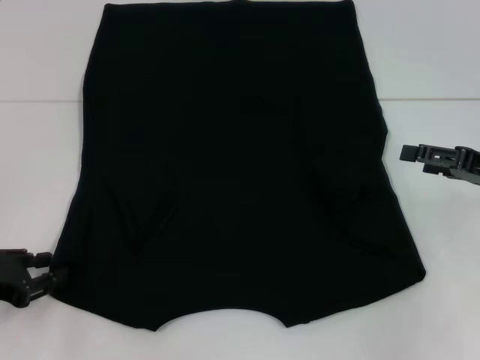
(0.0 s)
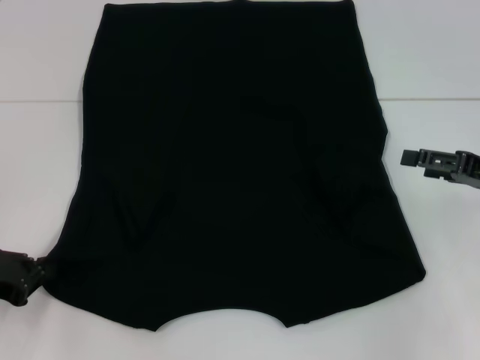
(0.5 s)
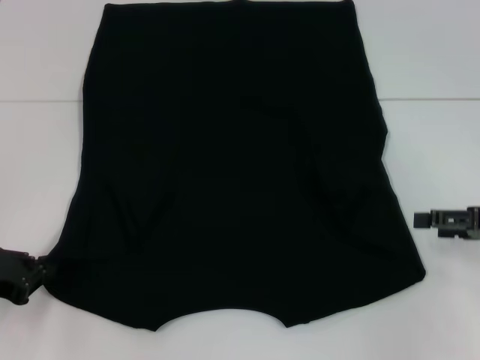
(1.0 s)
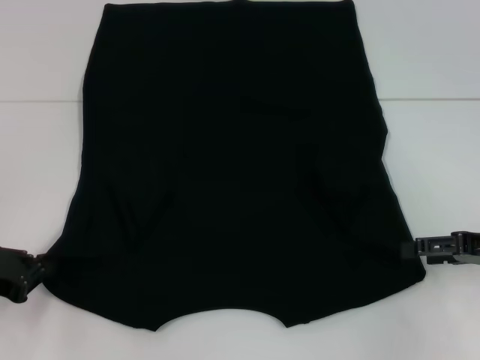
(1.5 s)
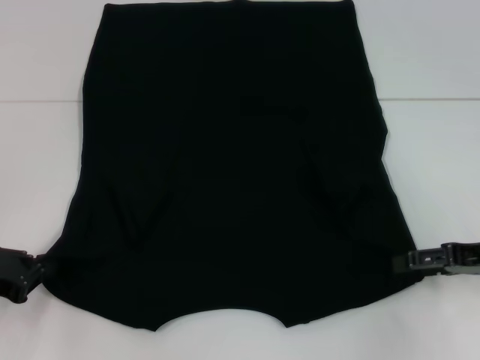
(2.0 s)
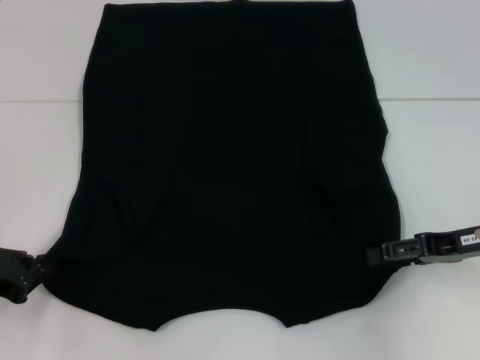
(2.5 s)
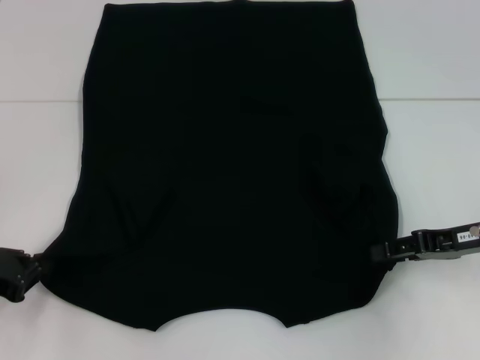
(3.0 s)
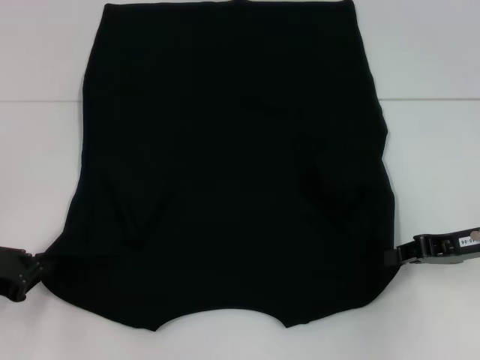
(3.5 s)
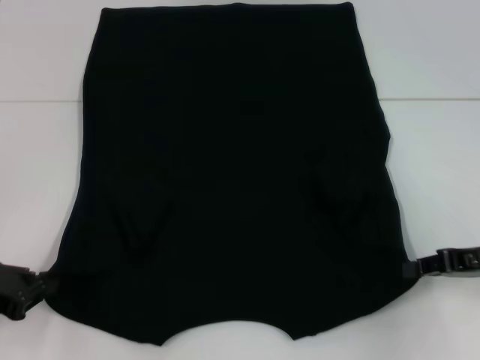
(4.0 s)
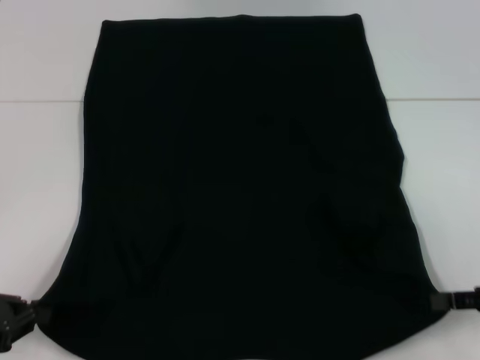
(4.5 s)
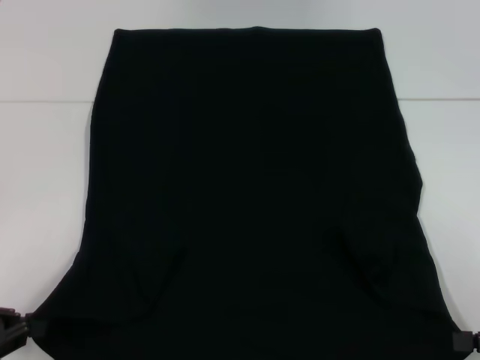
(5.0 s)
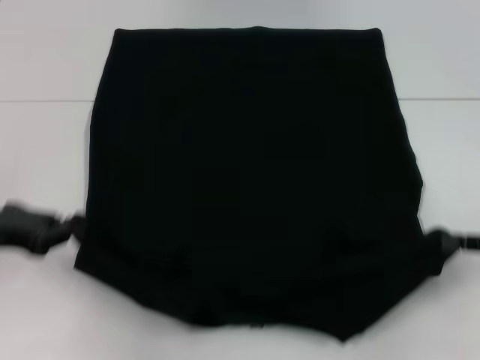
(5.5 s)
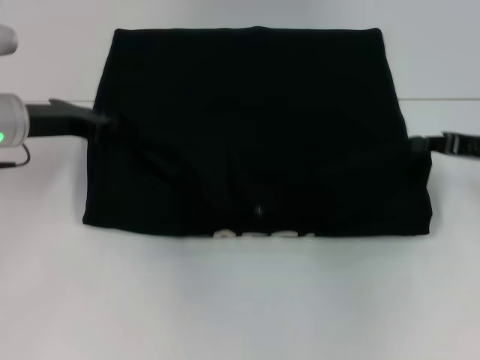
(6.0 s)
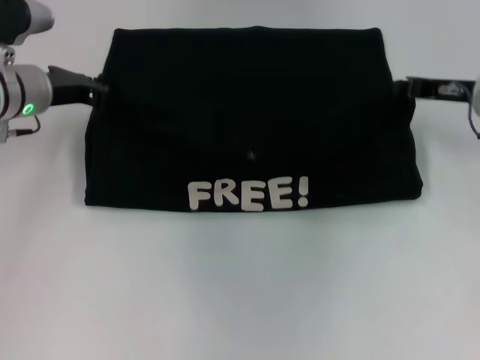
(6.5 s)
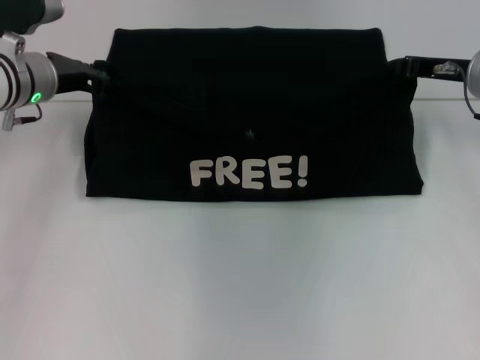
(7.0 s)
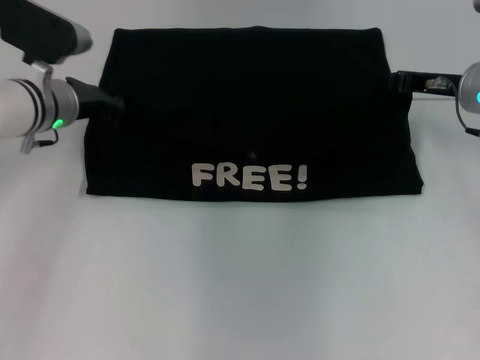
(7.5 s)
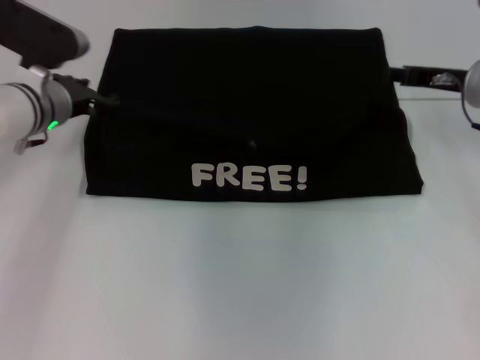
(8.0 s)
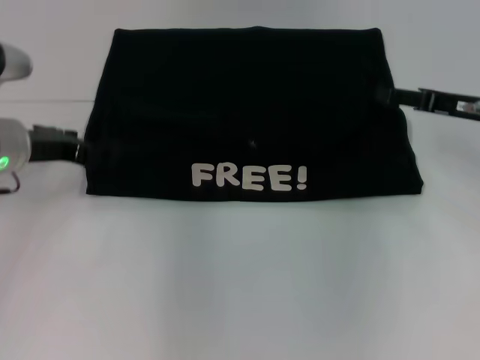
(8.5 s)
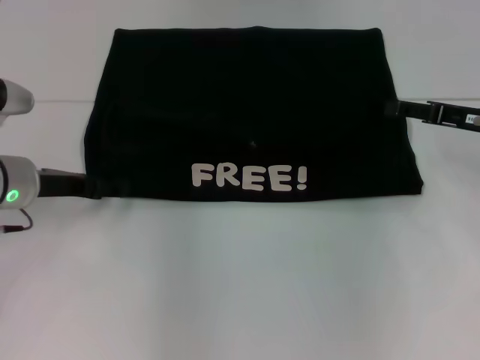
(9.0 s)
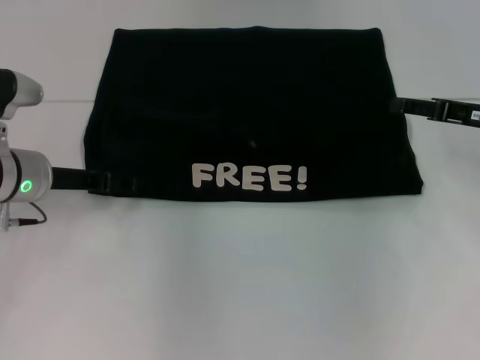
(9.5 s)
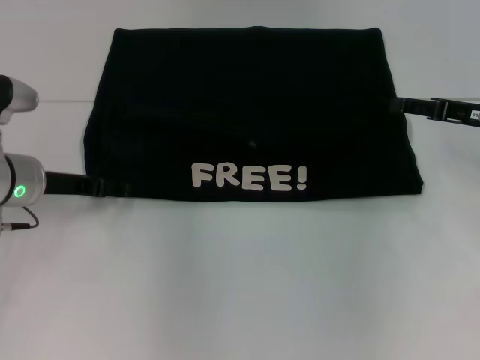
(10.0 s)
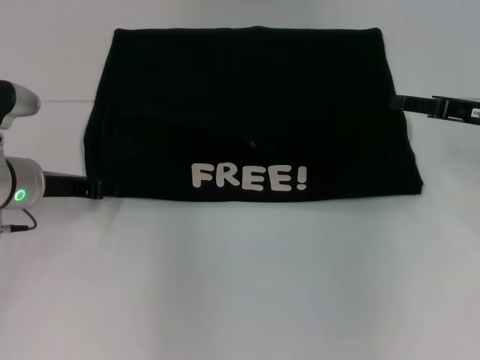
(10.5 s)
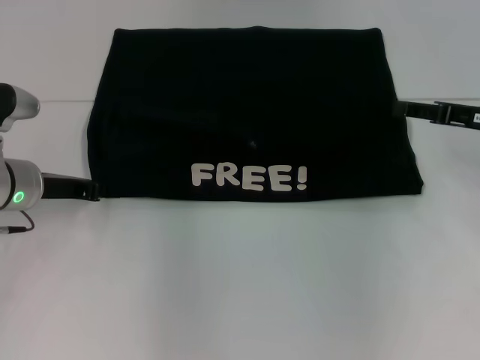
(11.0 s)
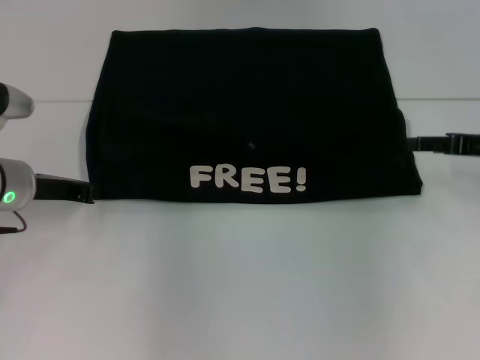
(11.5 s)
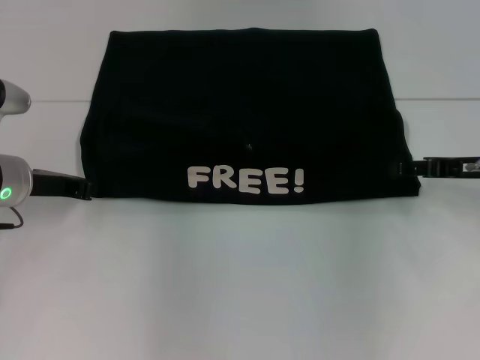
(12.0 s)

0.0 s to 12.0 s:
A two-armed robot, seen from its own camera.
Step, 0.0 to 2.5 s: Grab the bottom right corner with your right hand.
Step, 3.0 to 8.0 s: Fold the clothes with your left hand.
Step, 3.0 to 8.0 s: Fold the clothes with your right hand.
0.0 to 2.0 s: The left gripper closes its fingers.
2.0 to 4.0 s: The right gripper closes up.
4.0 to 6.0 s: The left gripper goes about 15 cm forward; the right gripper travels forward by approximately 5 cm.
6.0 to 8.0 s: The left gripper changes place by some 5 cm, and opens up. Meanwhile the right gripper travels forward and to the left by approximately 10 cm, and opens.
8.0 to 10.0 s: Both grippers travel together backward, roughly 5 cm. The left gripper opens its fingers. Meanwhile the right gripper opens up.
10.0 to 12.0 s: The left gripper closes up.

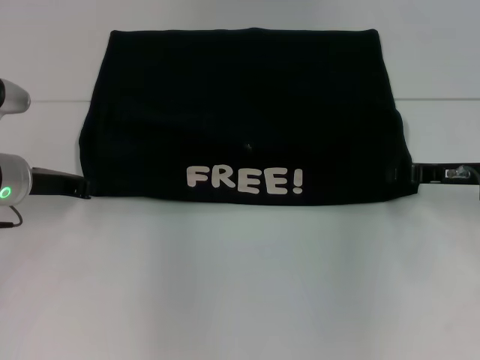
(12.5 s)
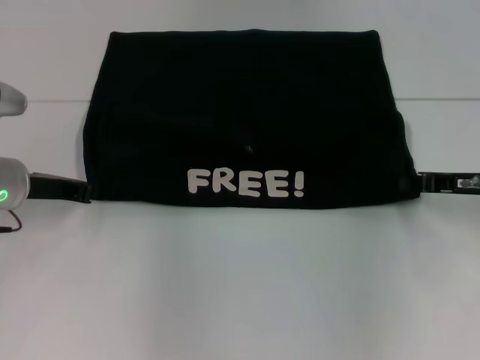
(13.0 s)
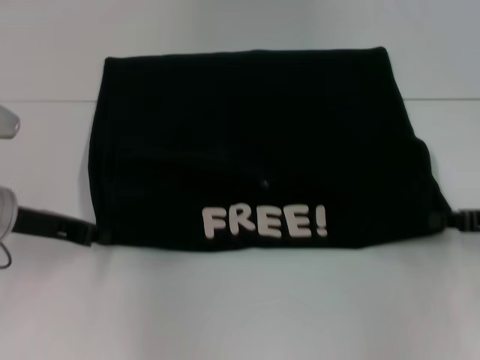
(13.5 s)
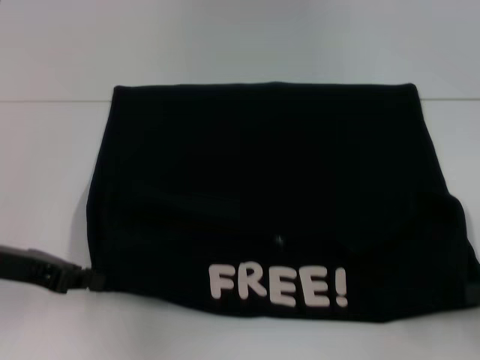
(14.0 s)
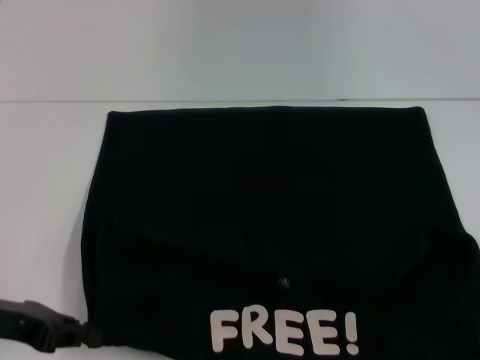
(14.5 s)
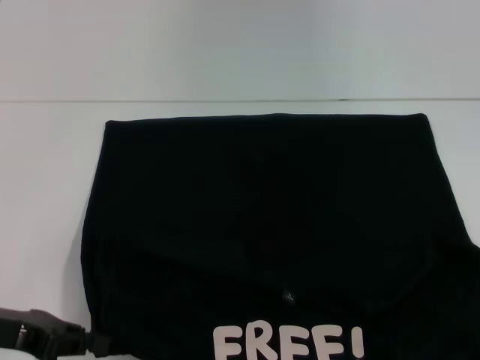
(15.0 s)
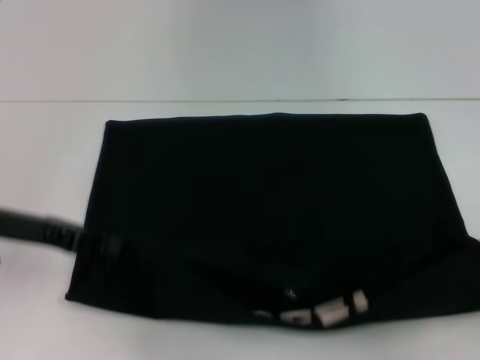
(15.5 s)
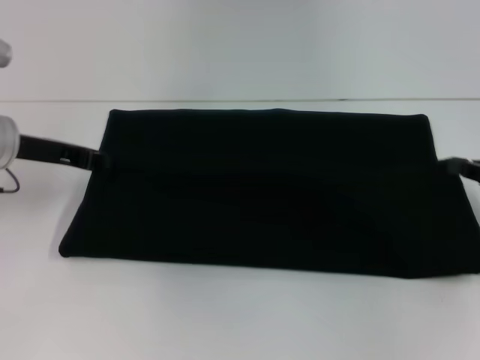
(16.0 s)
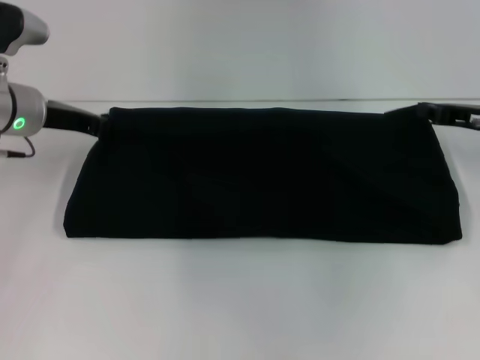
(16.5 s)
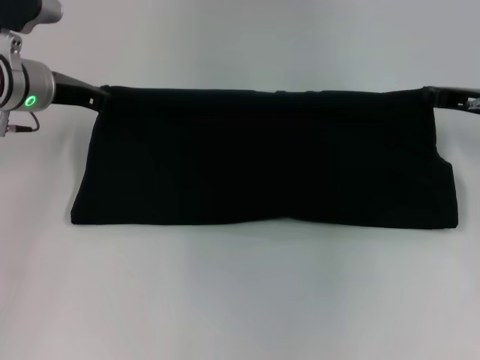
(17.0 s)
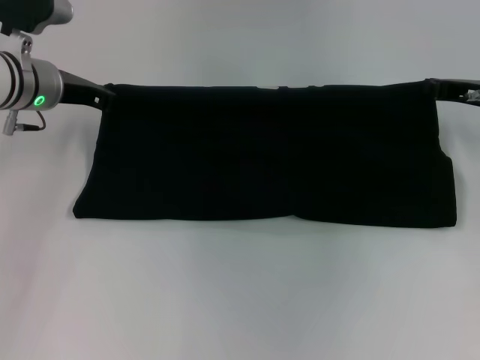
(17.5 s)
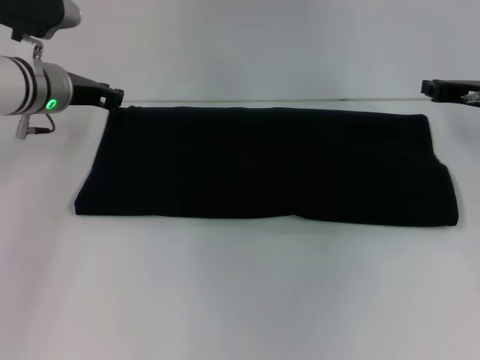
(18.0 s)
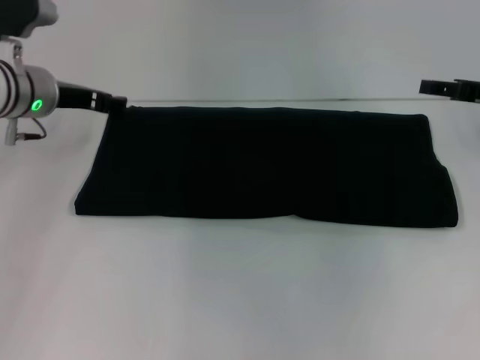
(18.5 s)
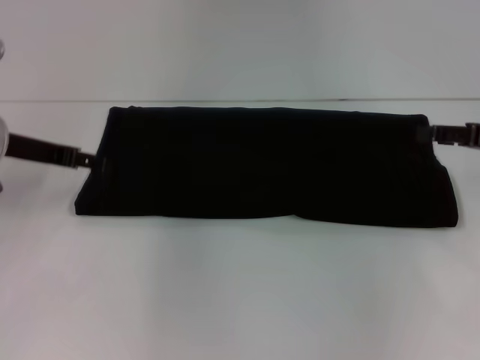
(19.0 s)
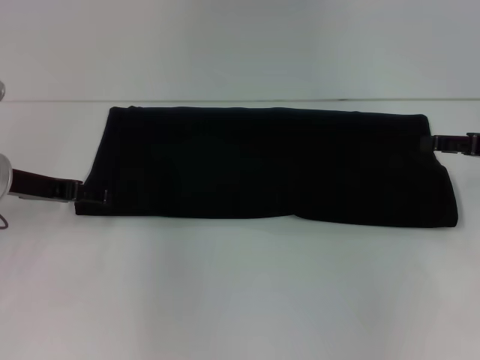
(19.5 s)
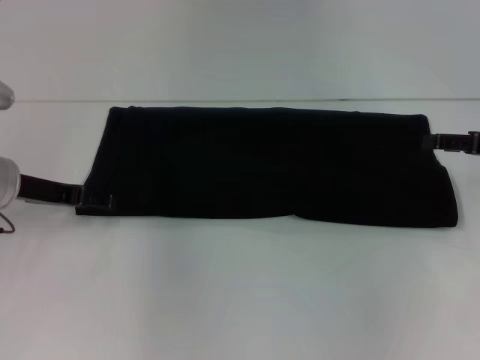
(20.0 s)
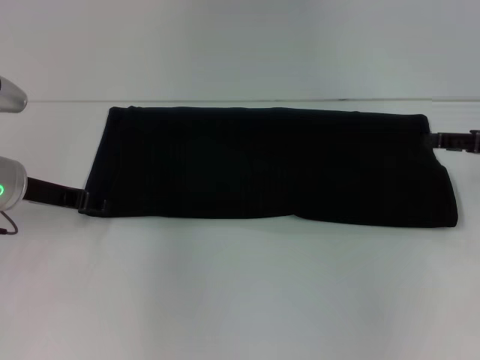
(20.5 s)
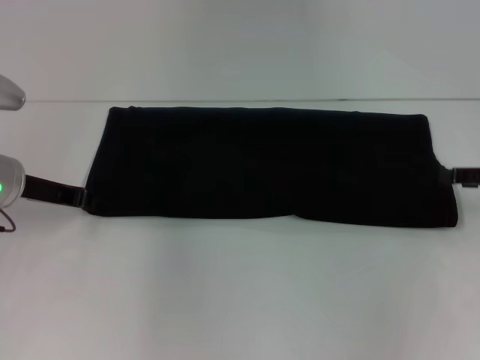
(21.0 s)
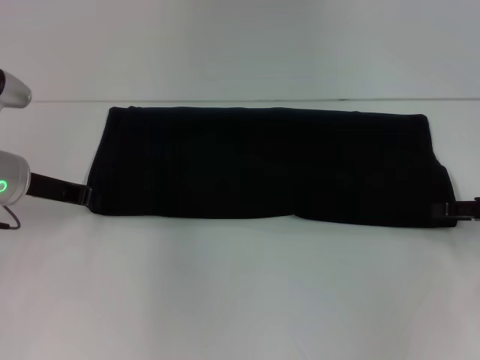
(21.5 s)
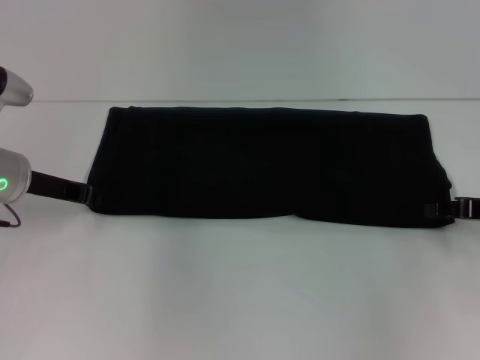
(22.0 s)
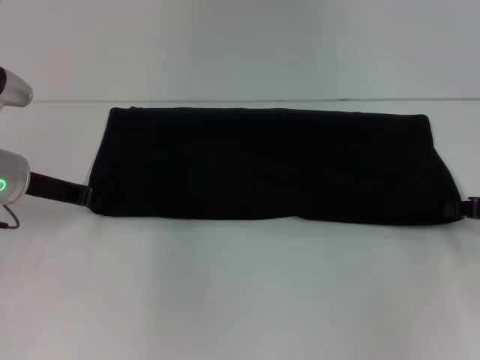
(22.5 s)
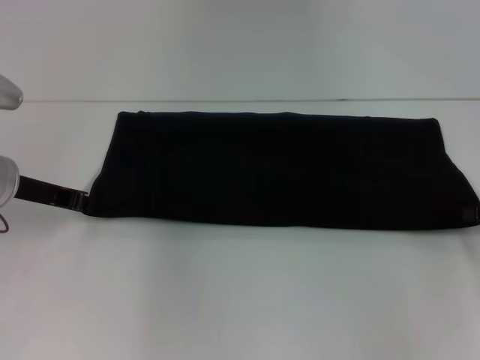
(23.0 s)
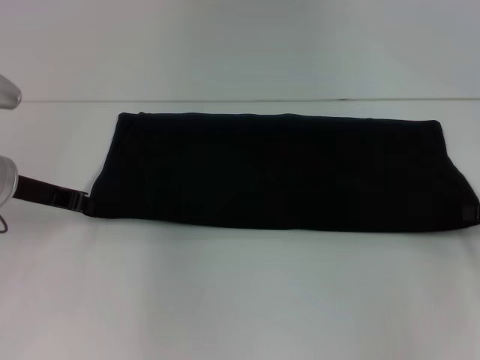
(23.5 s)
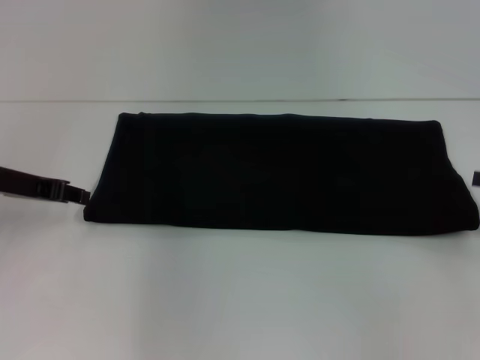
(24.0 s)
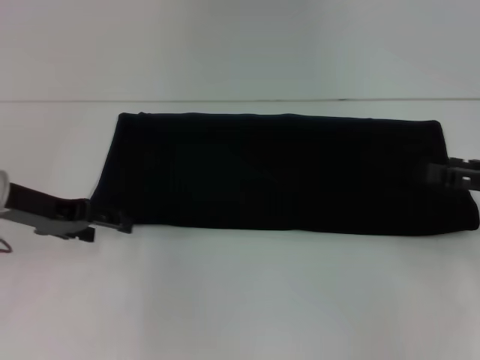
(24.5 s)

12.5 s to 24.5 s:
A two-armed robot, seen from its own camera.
Step, 14.5 to 18.0 s: Fold the clothes with your right hand.
12.5 to 14.5 s: The right gripper moves backward and to the right, roughly 20 cm, while the left gripper shifts roughly 15 cm backward.
14.5 to 16.5 s: Both grippers move forward, some 20 cm.
16.5 to 18.5 s: The right gripper opens up; the left gripper opens.
18.5 to 20.5 s: The left gripper heads backward, covering approximately 5 cm. Meanwhile the right gripper changes place by about 5 cm.
20.5 to 22.5 s: The right gripper travels downward by about 5 cm, and closes its fingers, while the left gripper closes its fingers.
22.5 to 24.5 s: The right gripper moves roughly 5 cm, and opens. Meanwhile the left gripper opens up.

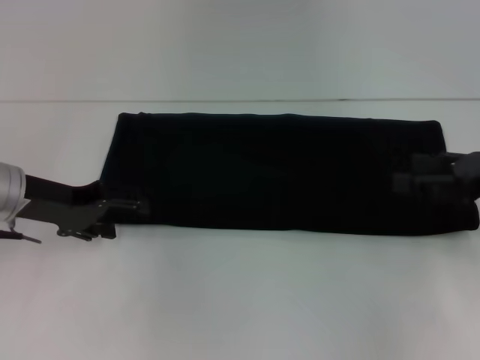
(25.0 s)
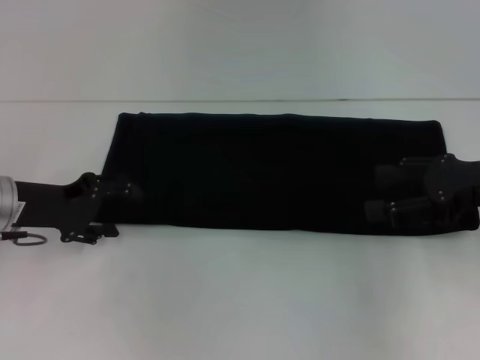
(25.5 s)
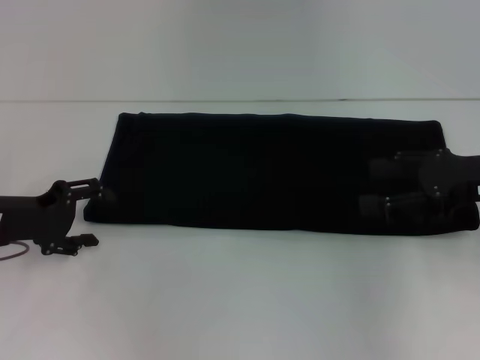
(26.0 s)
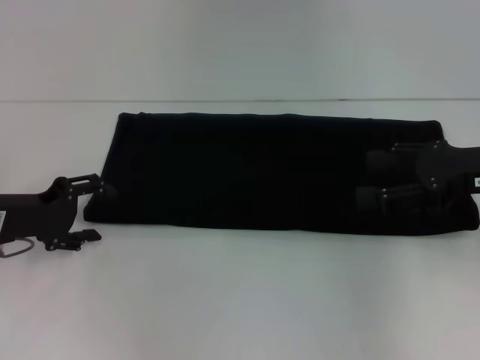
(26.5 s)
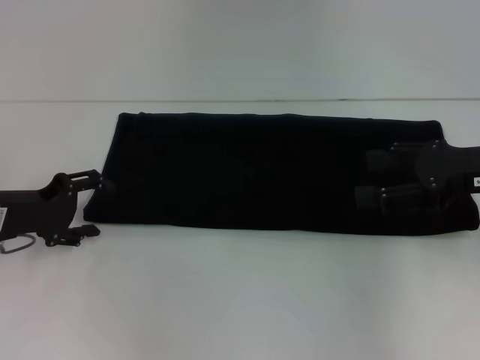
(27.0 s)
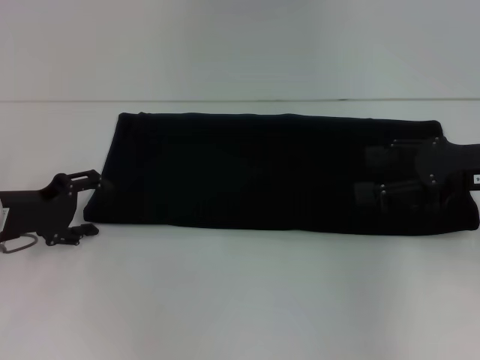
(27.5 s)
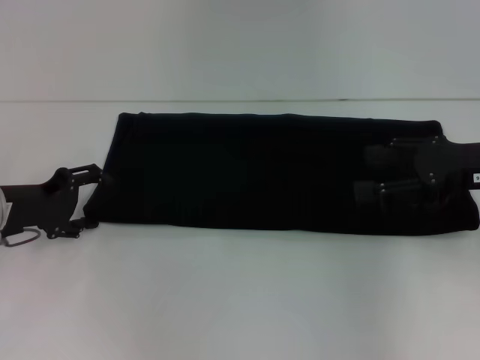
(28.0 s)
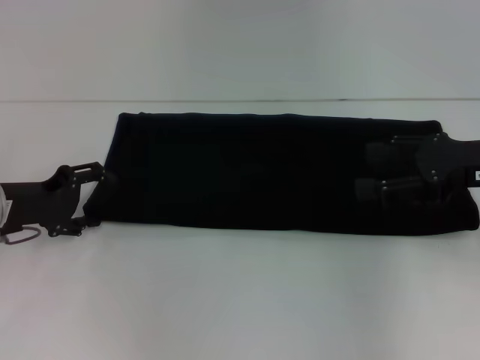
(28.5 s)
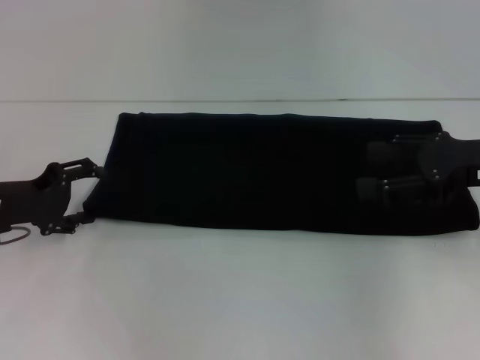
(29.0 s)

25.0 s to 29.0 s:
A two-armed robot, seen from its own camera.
25.0 to 27.0 s: The left gripper moves approximately 5 cm.
27.0 to 29.0 s: Both grippers stay put.
